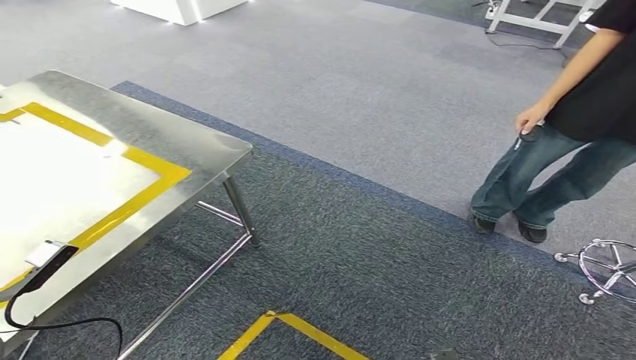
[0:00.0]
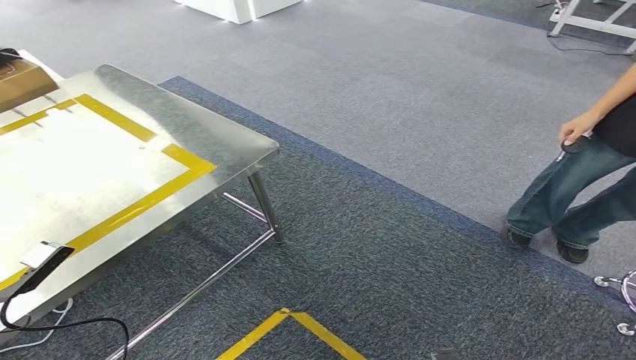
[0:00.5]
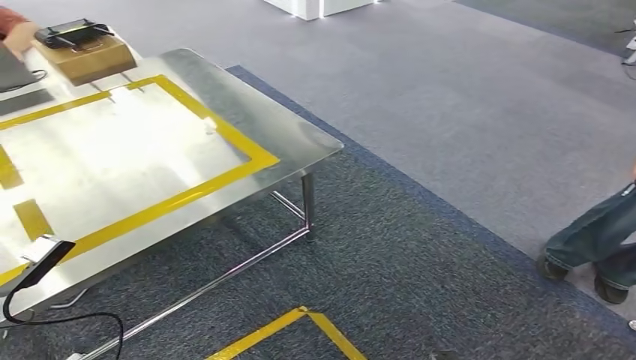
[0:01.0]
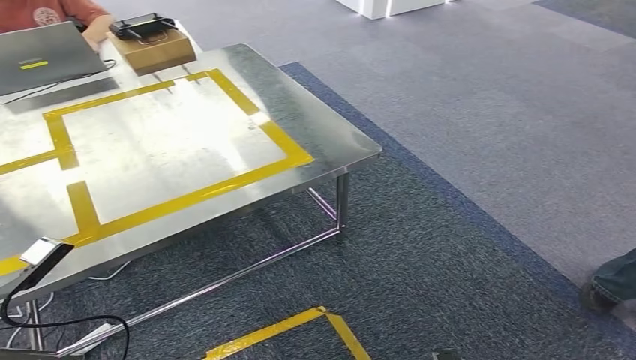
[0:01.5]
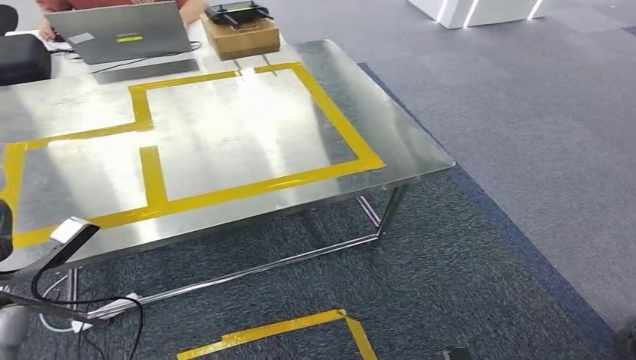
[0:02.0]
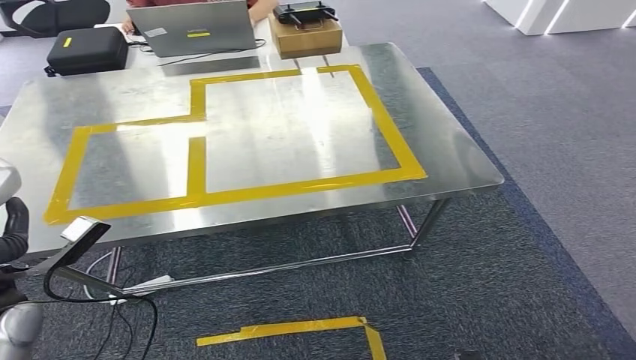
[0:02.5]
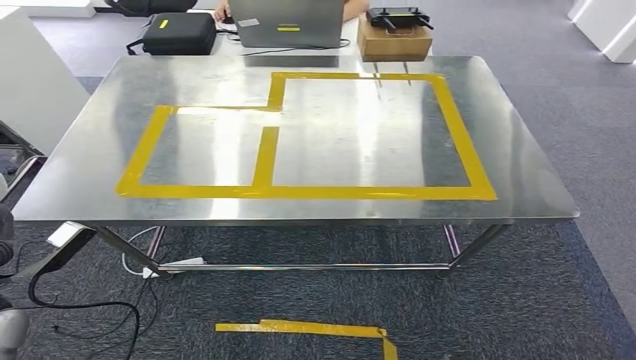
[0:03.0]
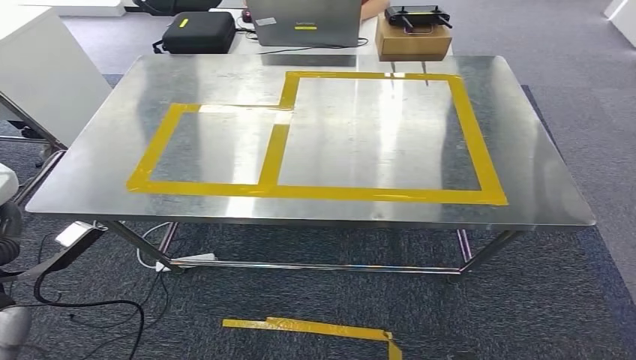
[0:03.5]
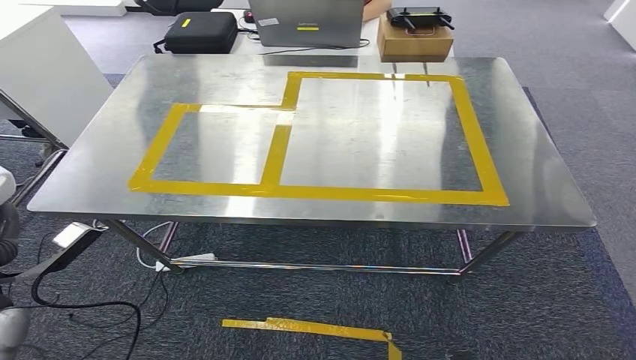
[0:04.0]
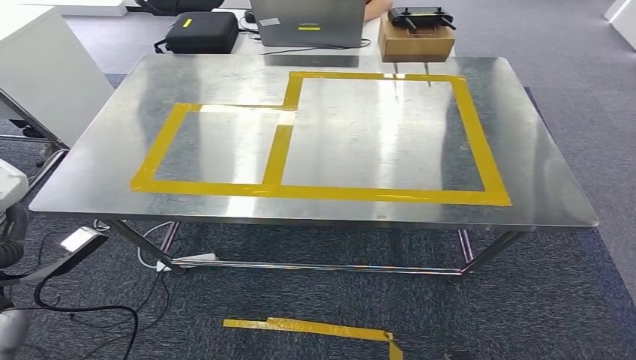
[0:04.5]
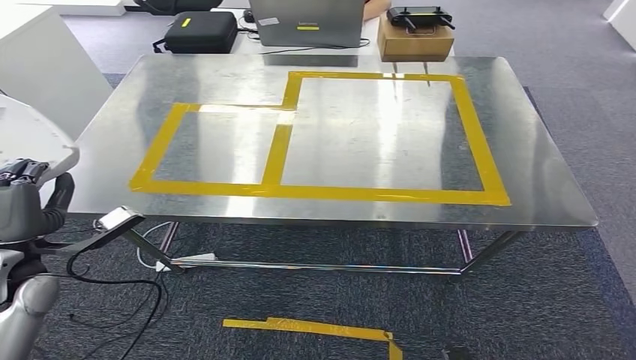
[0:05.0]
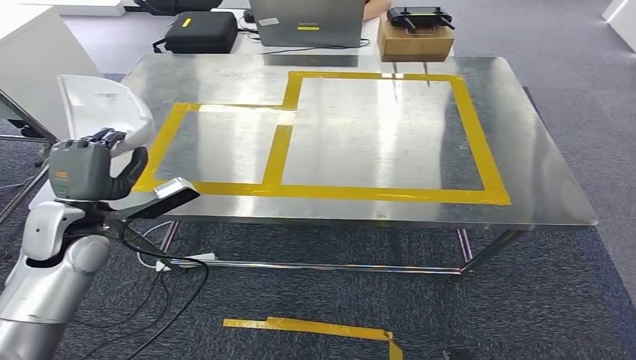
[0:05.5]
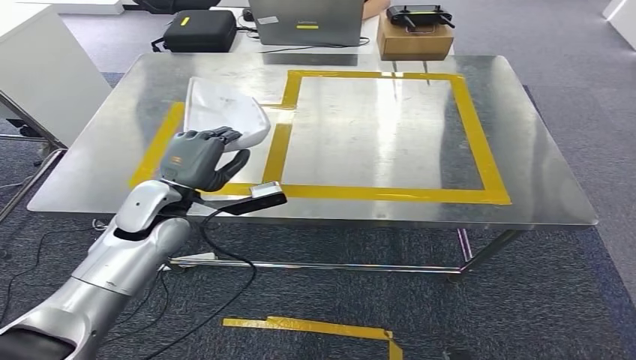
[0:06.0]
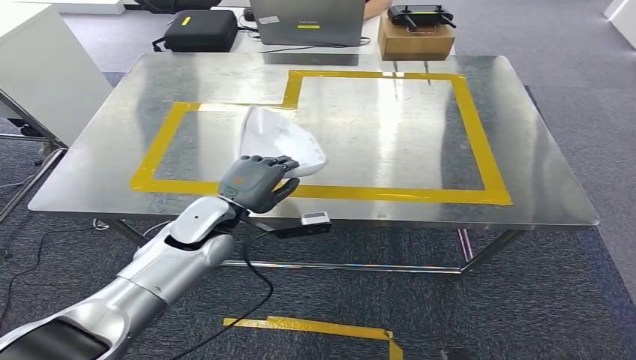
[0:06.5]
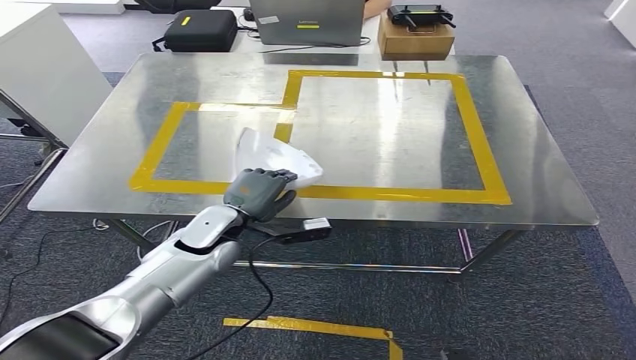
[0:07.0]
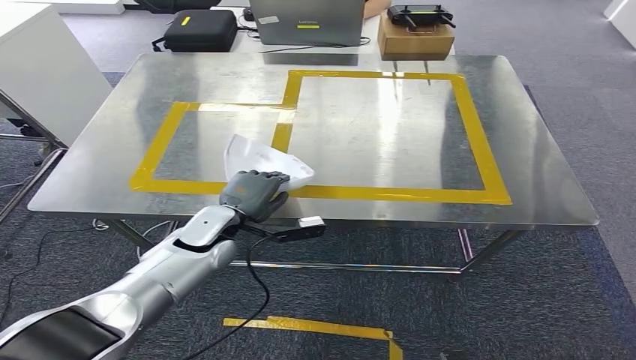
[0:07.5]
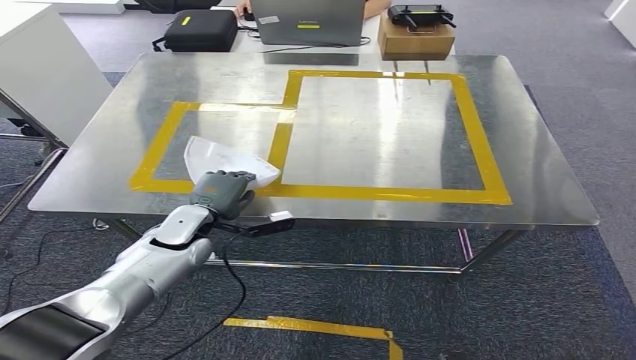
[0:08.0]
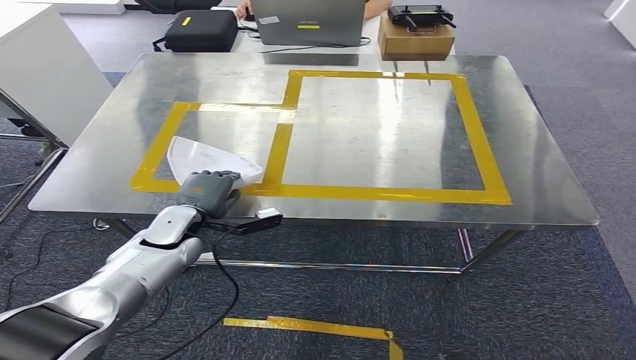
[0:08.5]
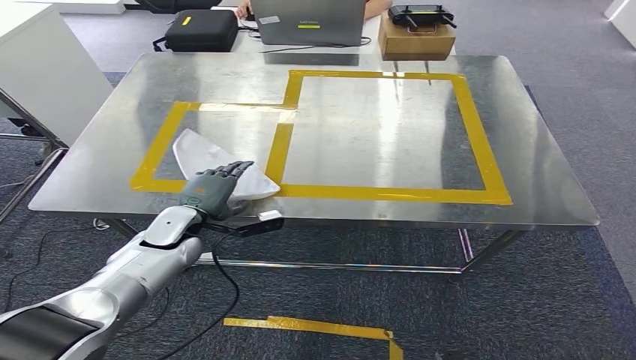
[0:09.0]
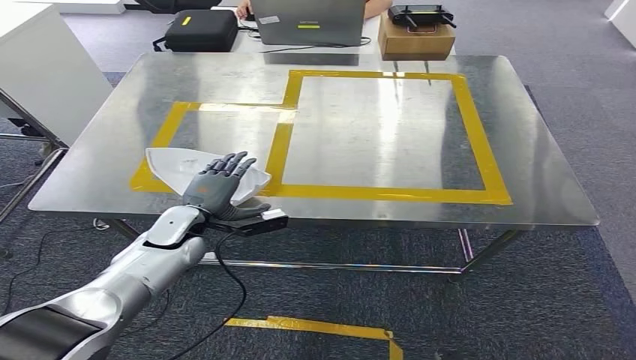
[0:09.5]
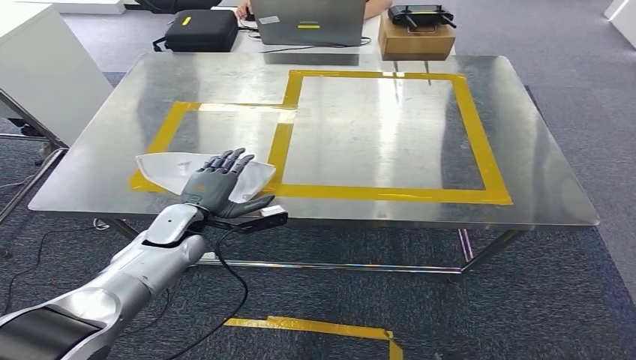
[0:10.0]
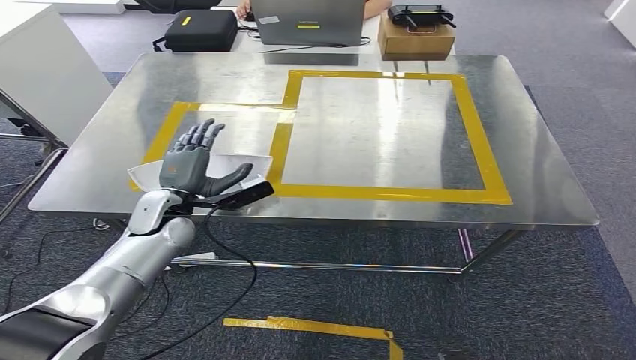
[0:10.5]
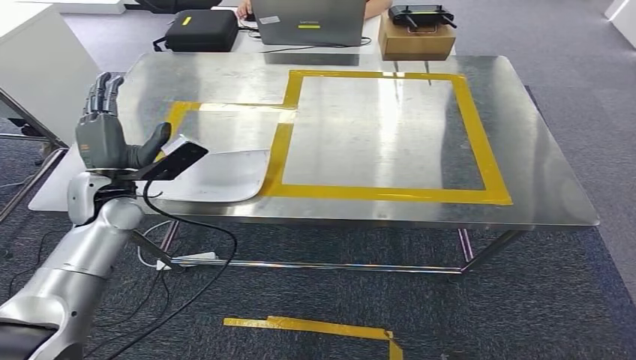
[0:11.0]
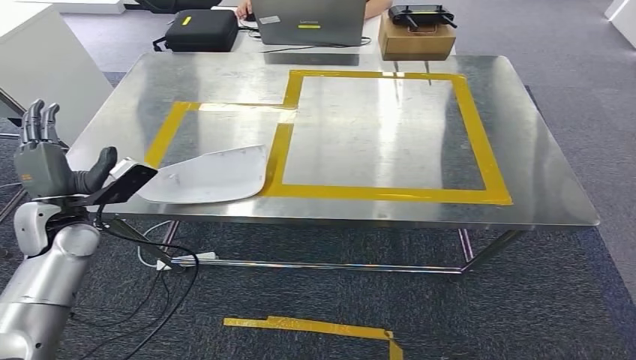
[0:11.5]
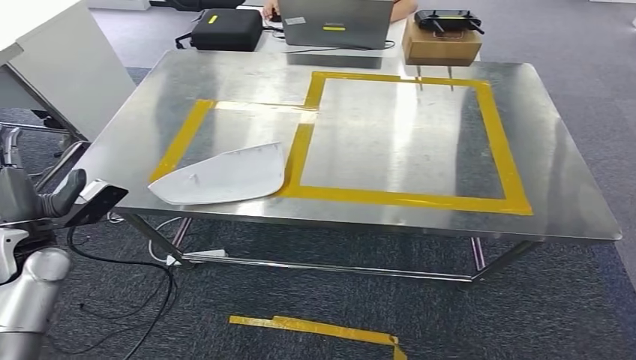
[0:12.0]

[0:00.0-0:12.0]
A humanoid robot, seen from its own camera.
Step, 0:00.0 to 0:05.5: Bring the small component to the front of the workbench.
Step, 0:06.0 to 0:11.5: Insert the small component into the corresponding slot on the workbench.
0:04.0 to 0:06.0: The left hand goes about 20 cm to the right and forward.
0:06.0 to 0:08.0: The left hand moves downward, approximately 10 cm.
0:08.0 to 0:10.0: The hands move only a little.

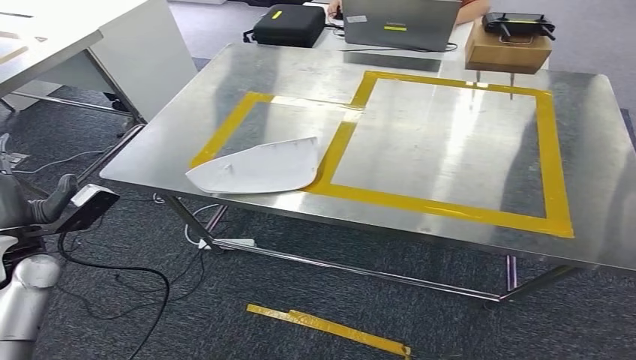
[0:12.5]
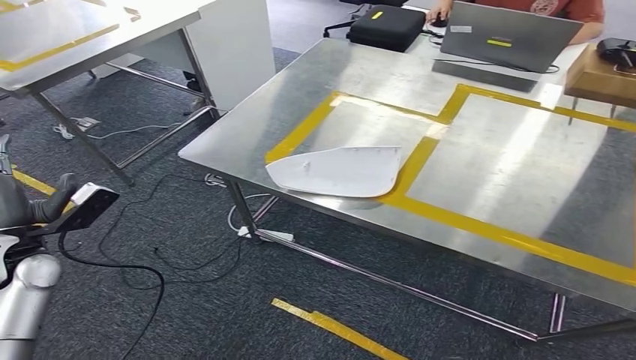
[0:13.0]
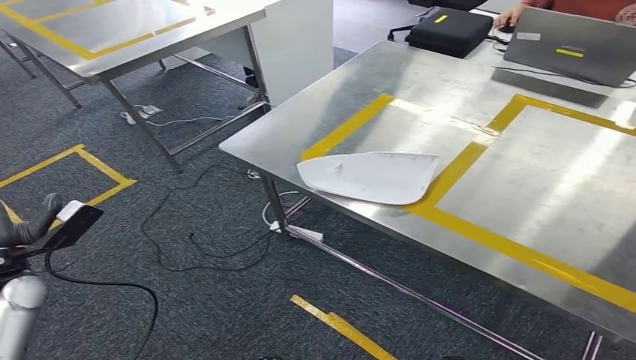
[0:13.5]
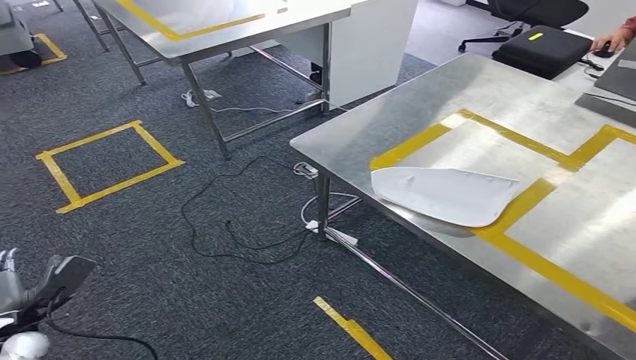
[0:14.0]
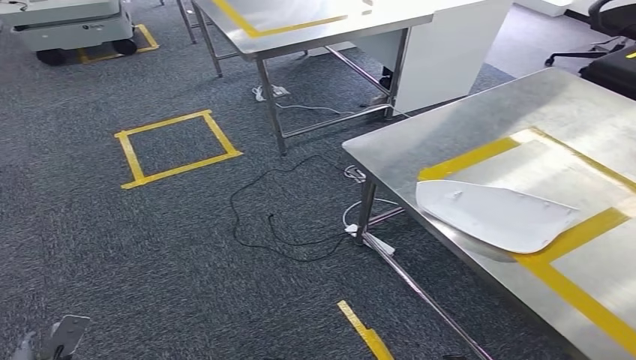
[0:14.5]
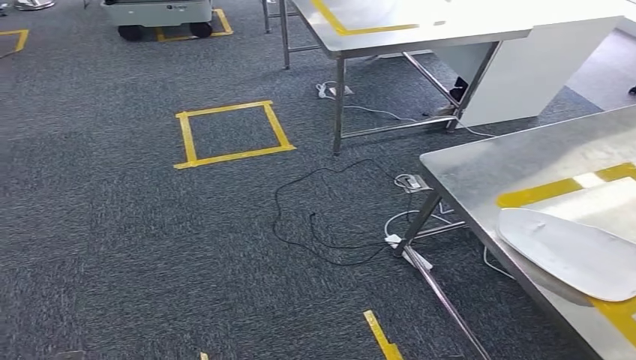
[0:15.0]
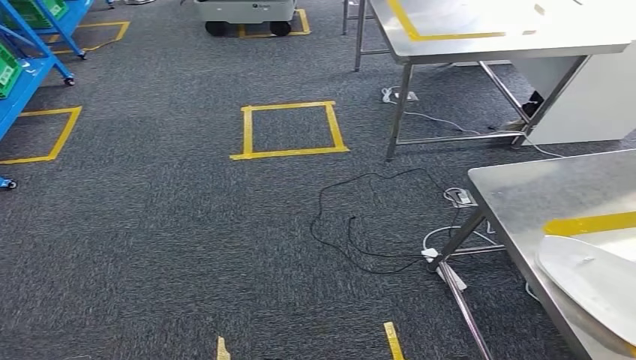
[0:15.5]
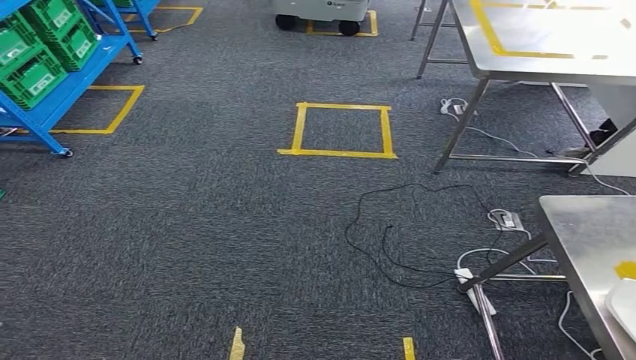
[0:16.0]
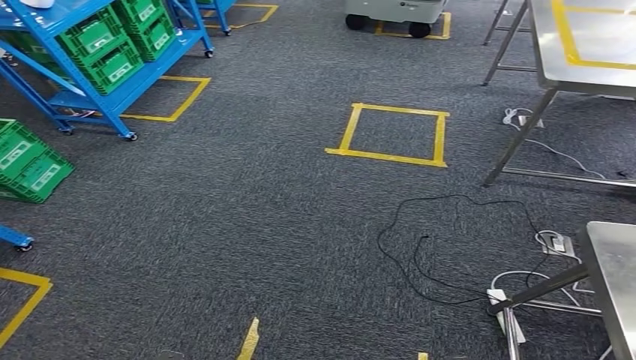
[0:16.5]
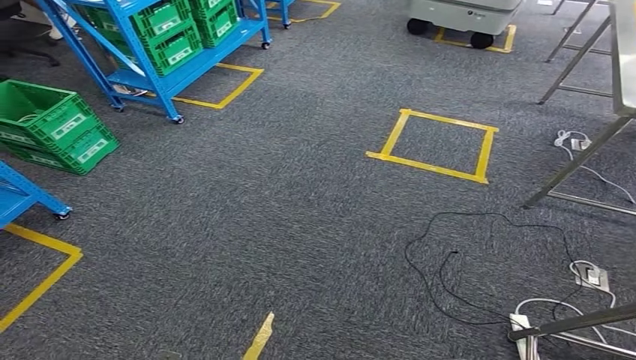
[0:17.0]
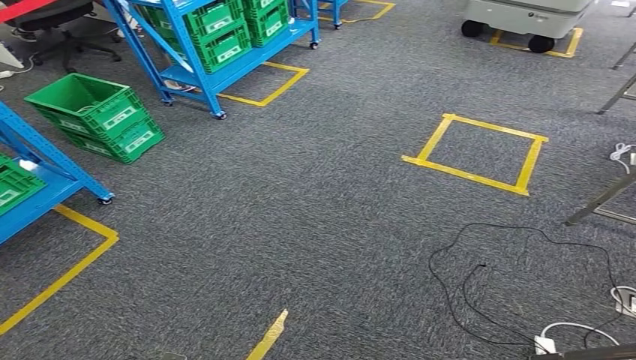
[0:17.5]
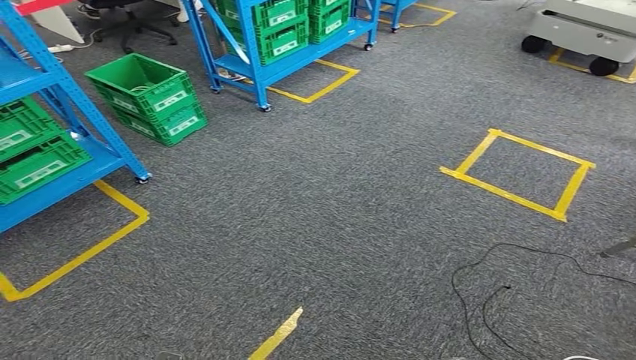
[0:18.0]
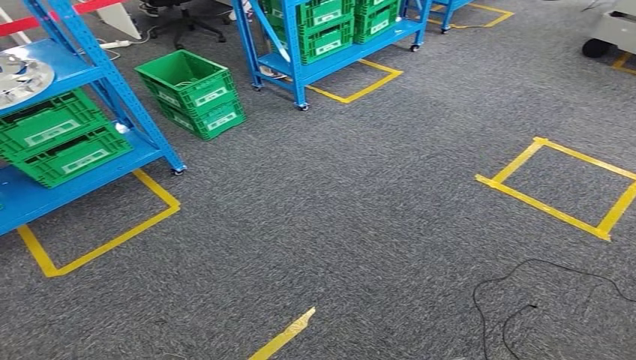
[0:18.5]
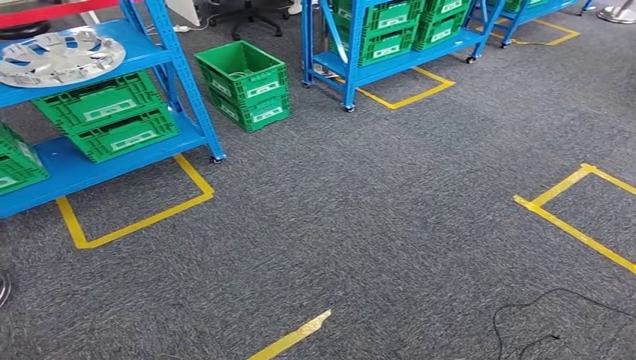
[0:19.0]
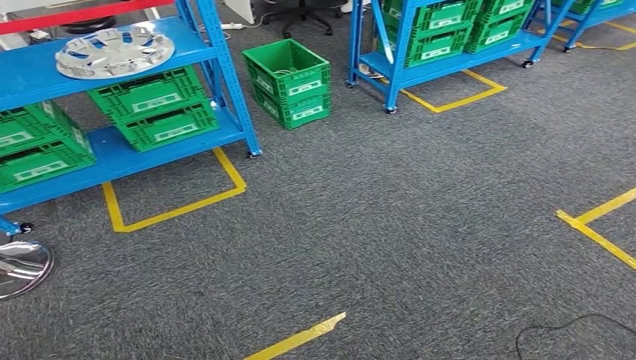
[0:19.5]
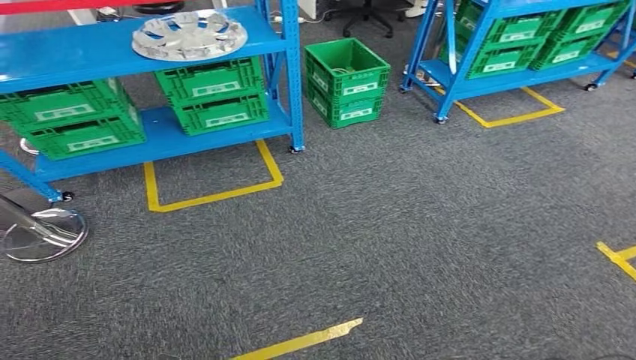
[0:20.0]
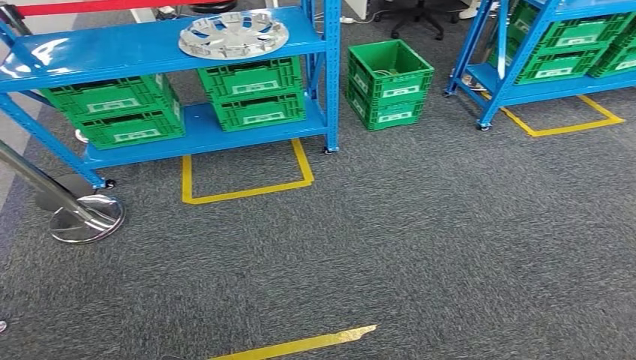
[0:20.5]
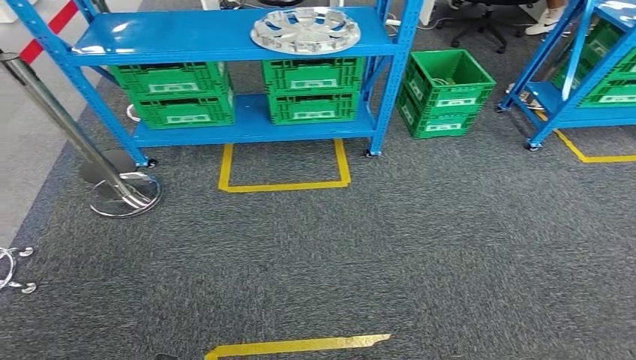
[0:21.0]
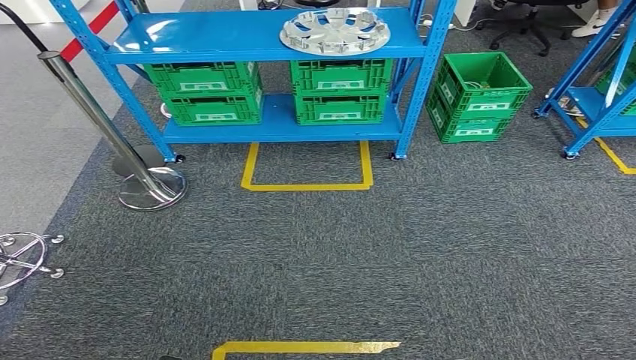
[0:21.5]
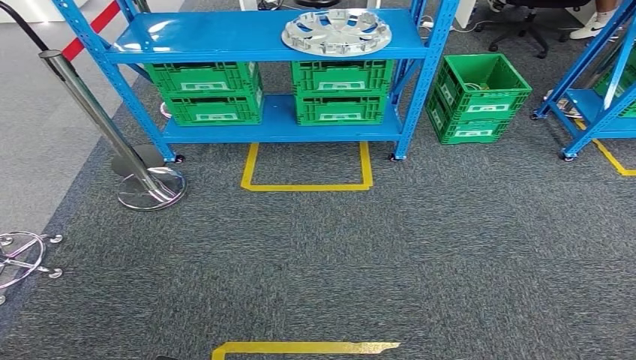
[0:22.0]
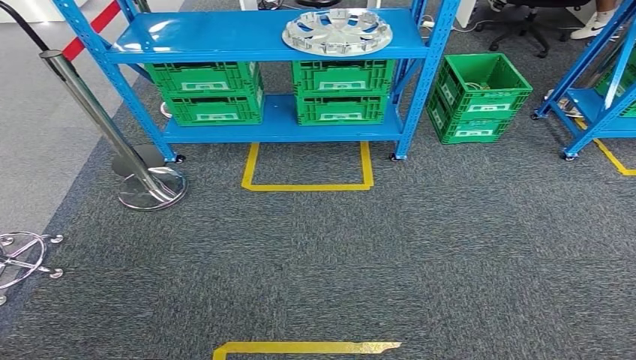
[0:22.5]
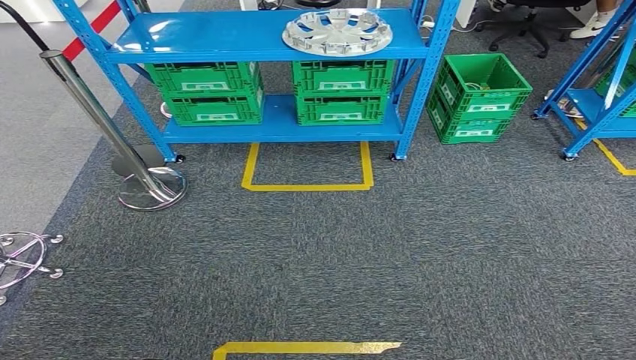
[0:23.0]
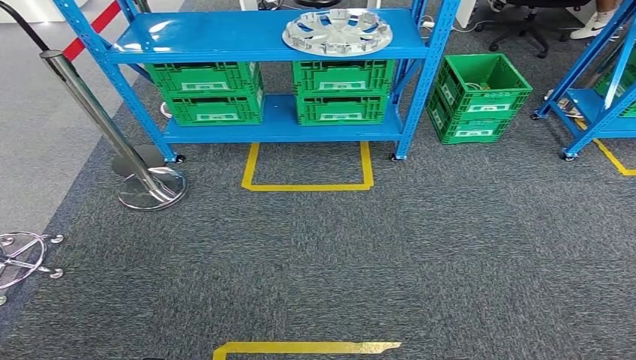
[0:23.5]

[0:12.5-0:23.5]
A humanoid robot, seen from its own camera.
0:21.5 to 0:23.5: The hands make only small movements.
